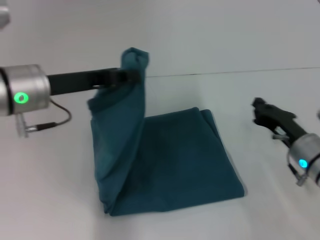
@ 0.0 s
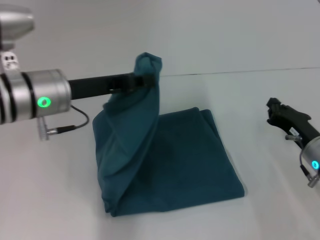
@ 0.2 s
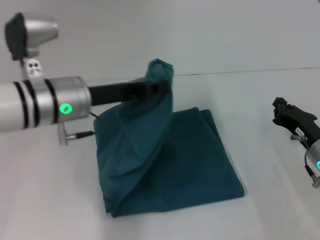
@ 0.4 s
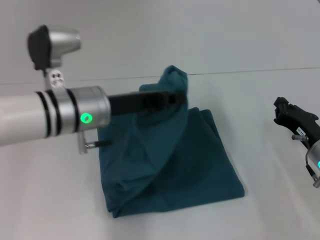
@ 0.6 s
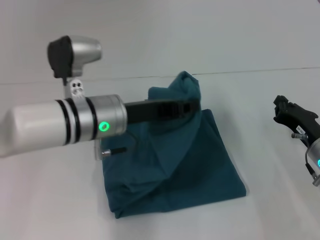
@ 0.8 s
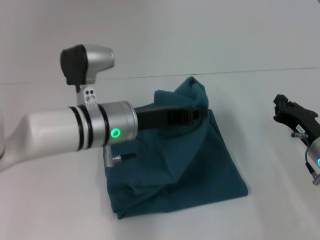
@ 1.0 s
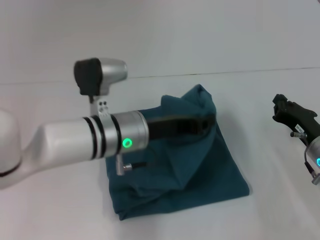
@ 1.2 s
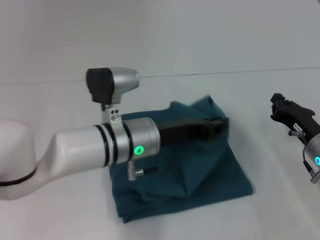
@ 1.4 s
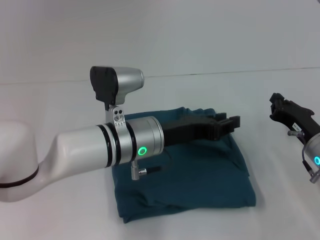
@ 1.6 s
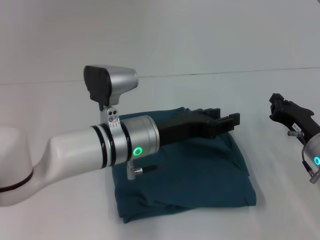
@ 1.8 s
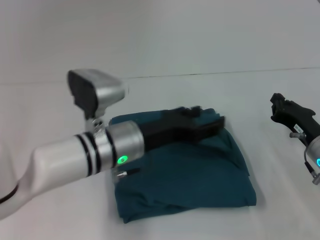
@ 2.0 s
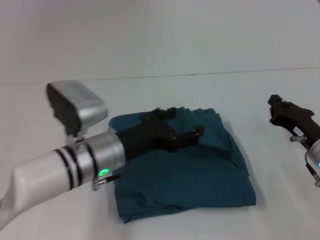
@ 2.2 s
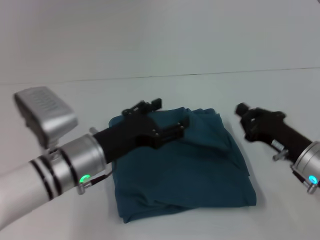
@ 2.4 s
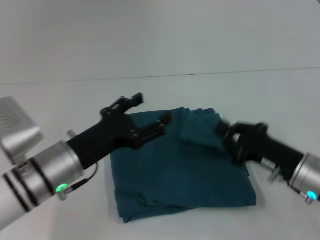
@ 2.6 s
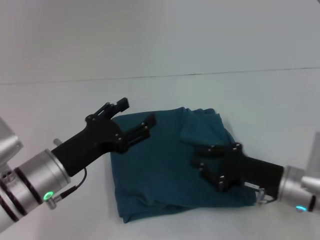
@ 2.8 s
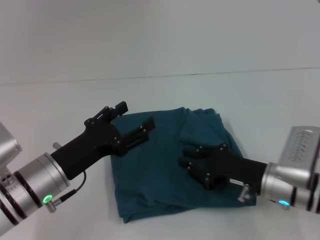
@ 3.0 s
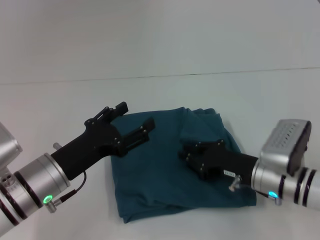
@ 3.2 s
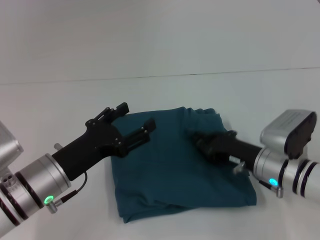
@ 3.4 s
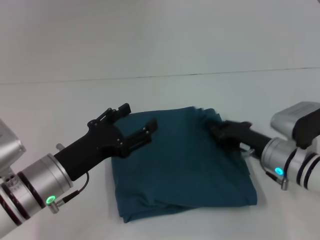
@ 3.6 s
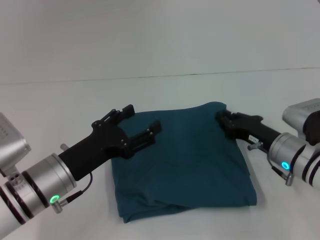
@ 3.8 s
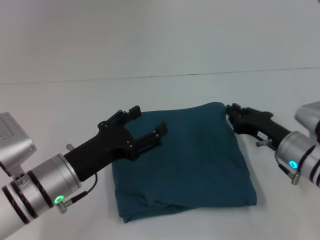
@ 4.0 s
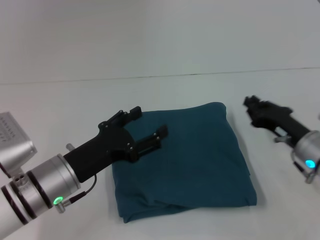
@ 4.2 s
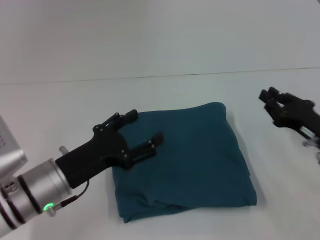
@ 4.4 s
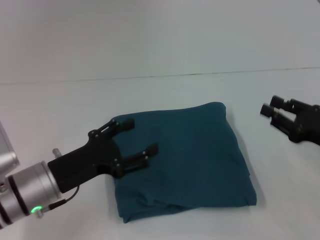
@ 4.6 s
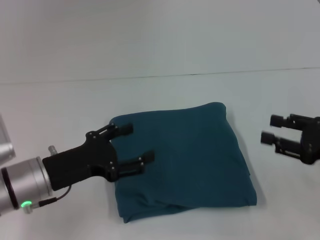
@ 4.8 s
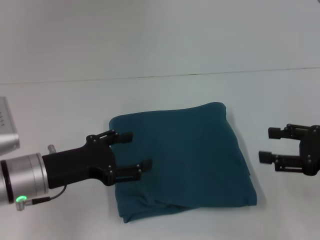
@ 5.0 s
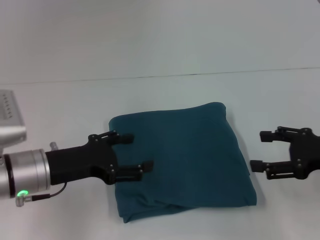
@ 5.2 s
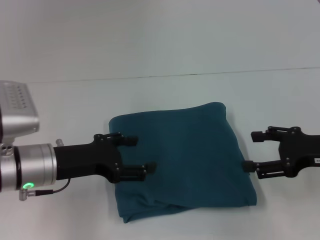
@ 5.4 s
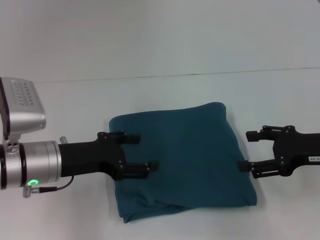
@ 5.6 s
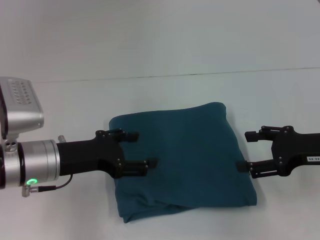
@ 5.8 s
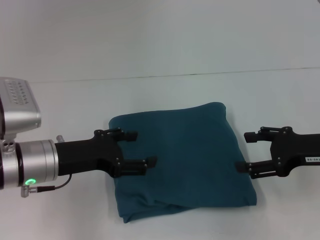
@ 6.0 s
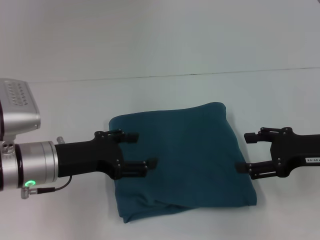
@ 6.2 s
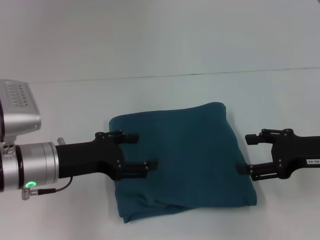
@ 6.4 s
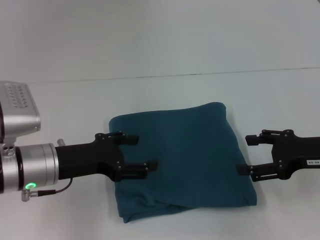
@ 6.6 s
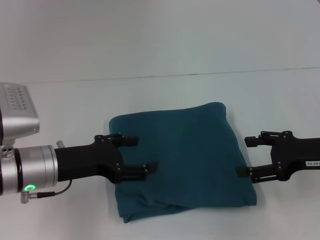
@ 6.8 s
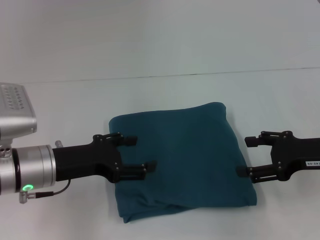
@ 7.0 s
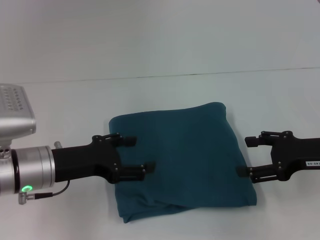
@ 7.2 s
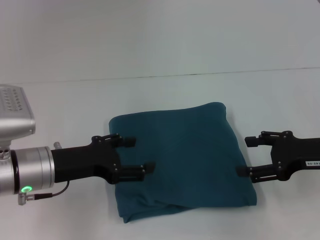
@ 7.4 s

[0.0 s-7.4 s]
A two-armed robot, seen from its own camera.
Step, 0.0 to 2.4 s: Fold the clothes to the left.
0.0 to 1.4 s: The left gripper heads to the right and downward, covering about 15 cm.
1.4 to 3.0 s: The right gripper travels to the left by roughly 5 cm. The left gripper goes some 15 cm to the left and backward, and opens.
3.0 to 4.4 s: The right gripper heads to the right, covering roughly 10 cm.
4.4 to 6.0 s: The right gripper moves upward, about 5 cm, and opens. Meanwhile the left gripper changes place by approximately 5 cm.
6.0 to 7.4 s: Both grippers stay about where they are.
